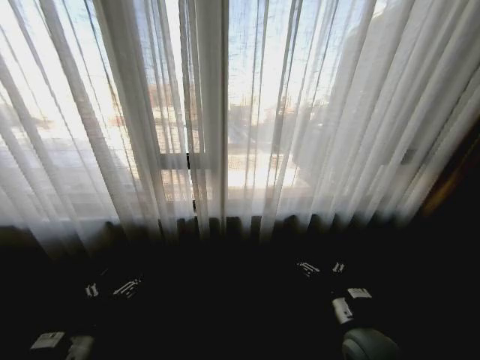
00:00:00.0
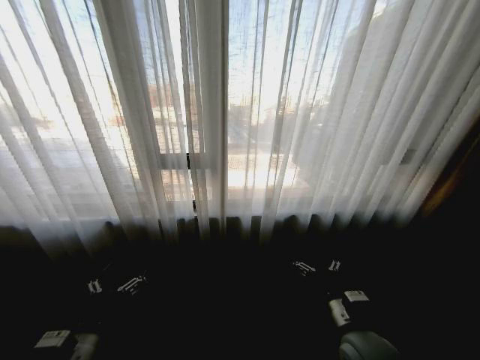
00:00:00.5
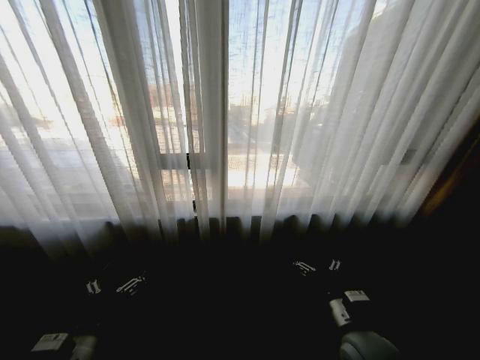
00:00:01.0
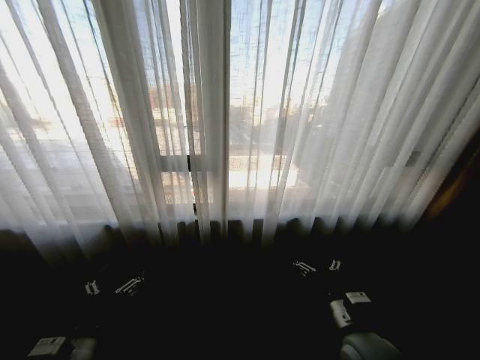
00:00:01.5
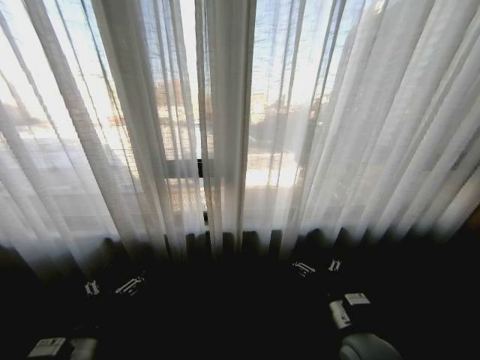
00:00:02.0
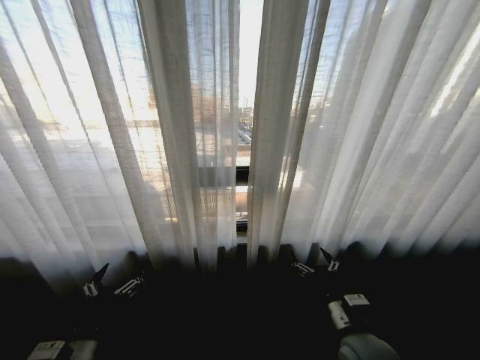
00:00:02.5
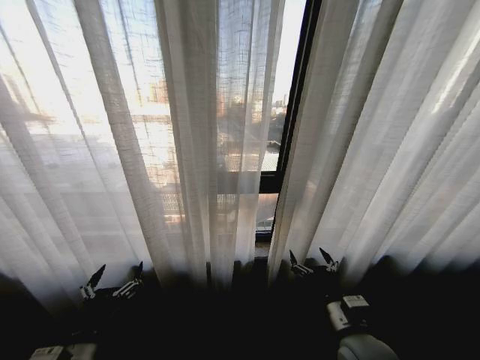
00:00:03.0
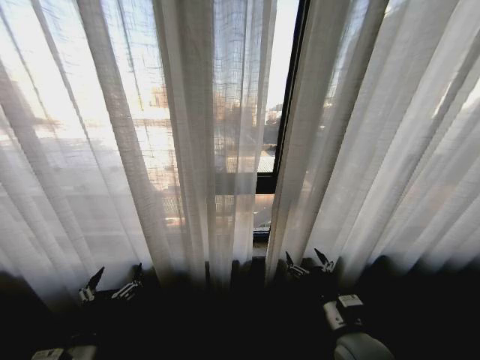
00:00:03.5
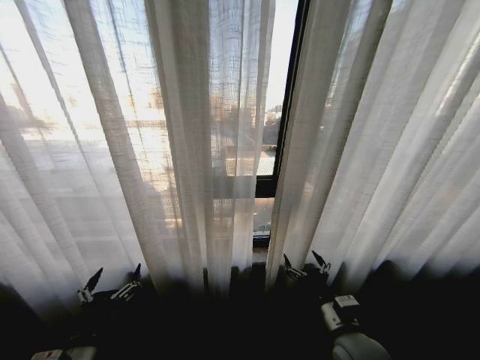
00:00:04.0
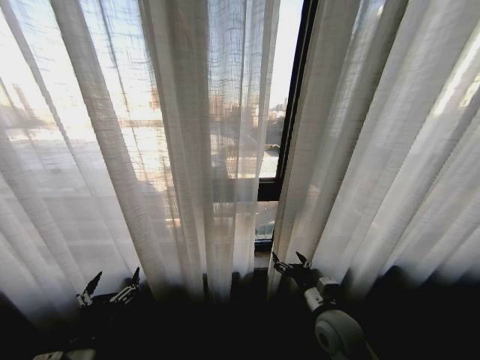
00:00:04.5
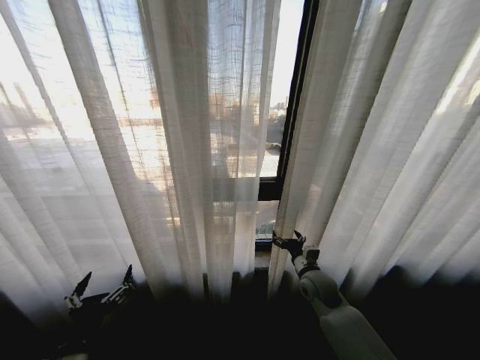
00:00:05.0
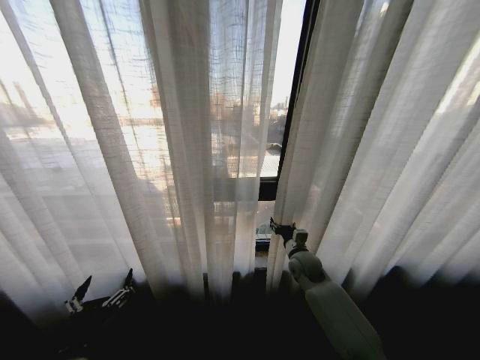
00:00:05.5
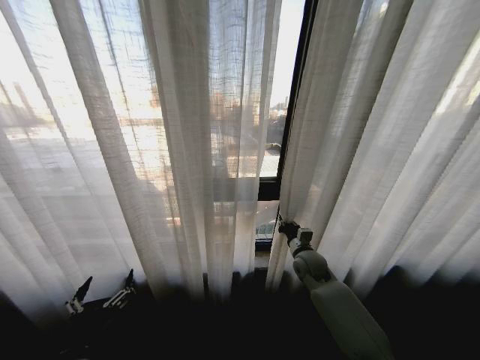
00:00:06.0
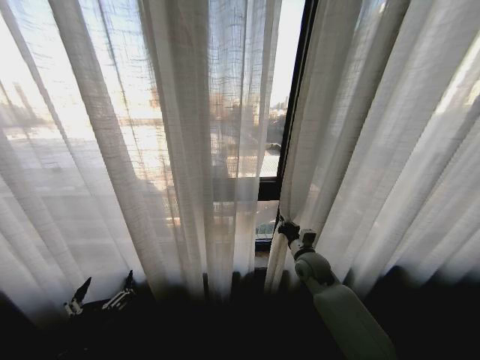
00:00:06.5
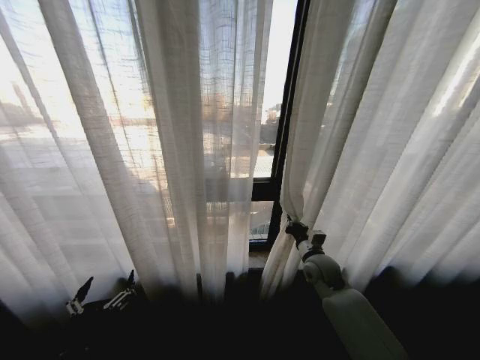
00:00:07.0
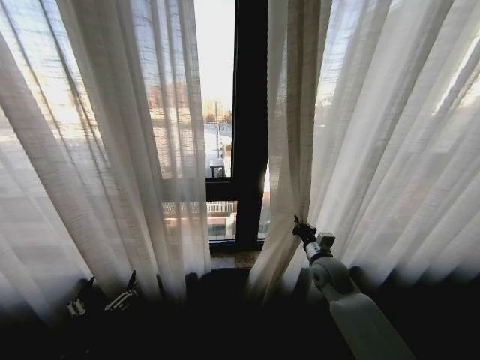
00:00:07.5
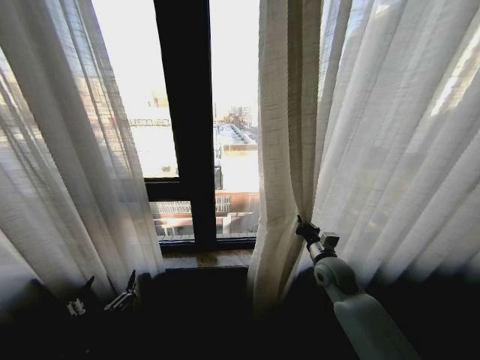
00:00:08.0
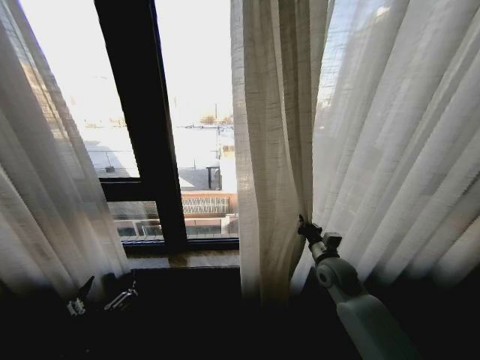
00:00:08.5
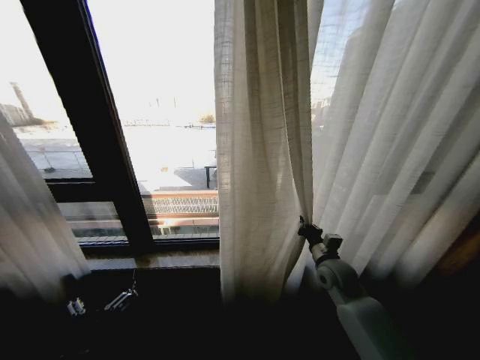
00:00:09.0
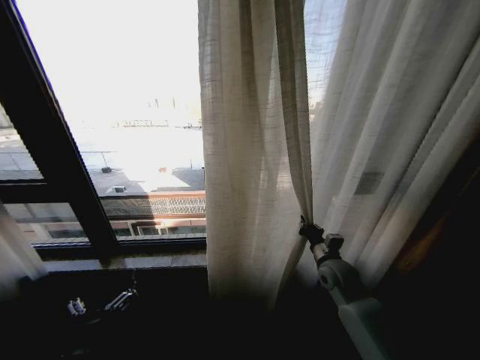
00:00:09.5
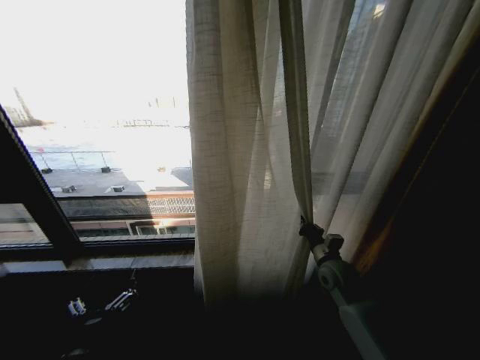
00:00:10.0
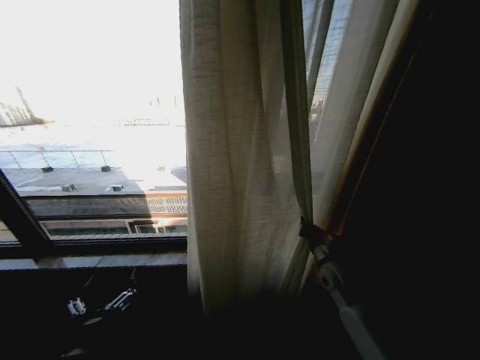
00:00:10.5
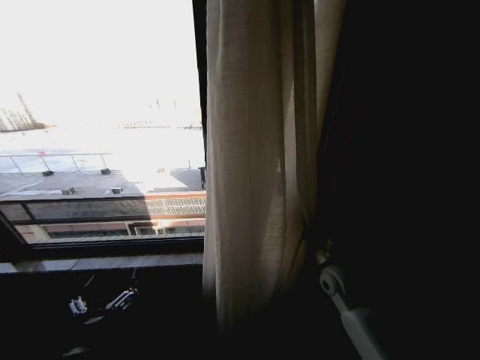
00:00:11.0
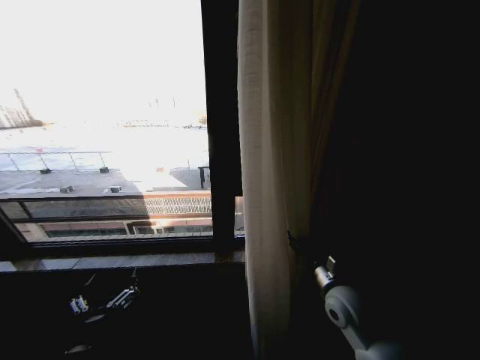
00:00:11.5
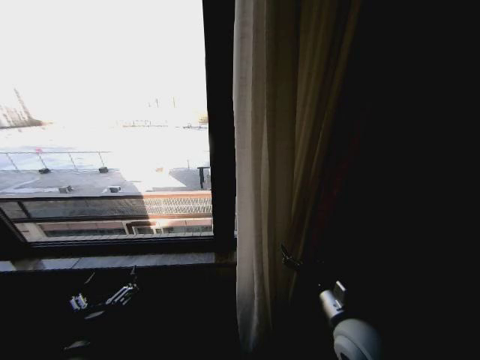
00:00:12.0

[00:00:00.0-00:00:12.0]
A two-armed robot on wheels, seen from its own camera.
Task of the whole recording: Open the curtains by pulling them apart, changing their state from closed to fully open.
00:00:04.0 to 00:00:06.0: The right gripper moves forward, some 25 cm, and closes up.
00:00:06.0 to 00:00:08.0: The right gripper shifts by roughly 5 cm.
00:00:10.0 to 00:00:12.0: The right gripper shifts approximately 15 cm backward, and opens up.

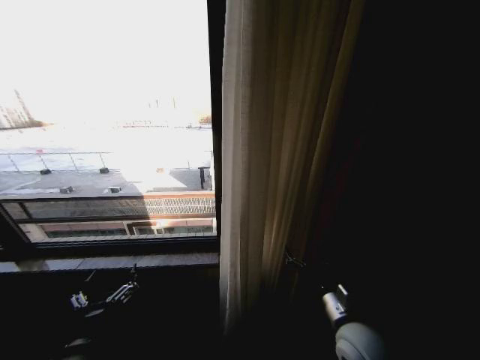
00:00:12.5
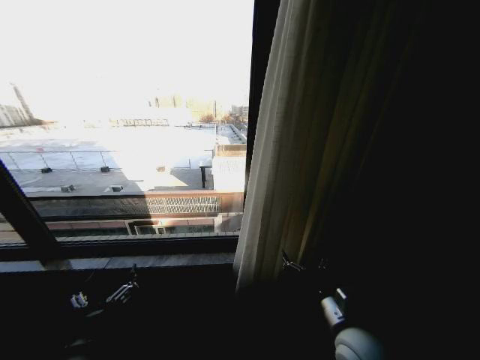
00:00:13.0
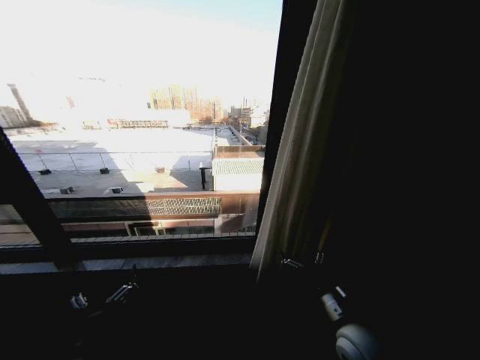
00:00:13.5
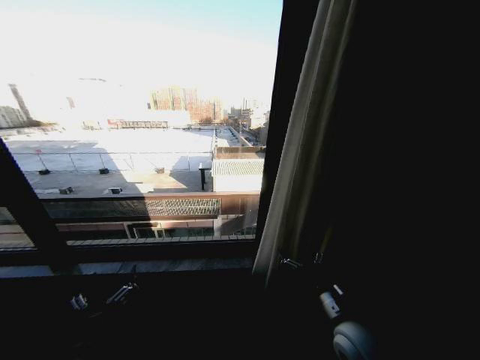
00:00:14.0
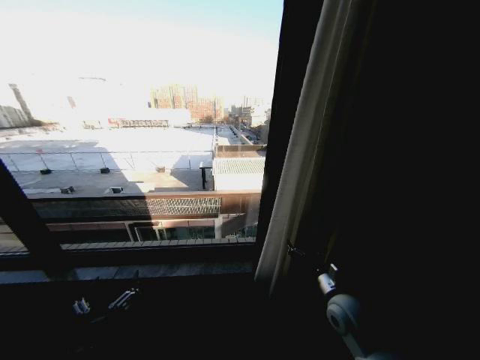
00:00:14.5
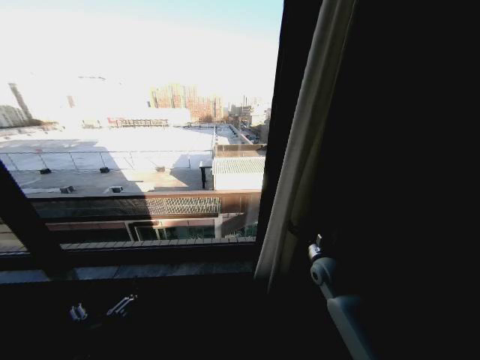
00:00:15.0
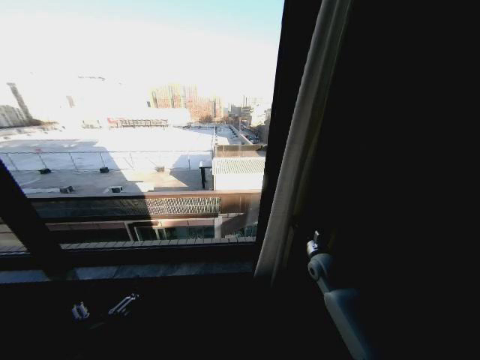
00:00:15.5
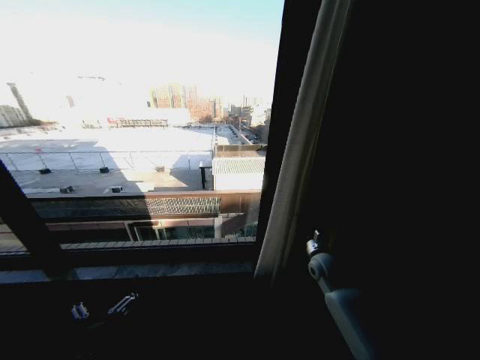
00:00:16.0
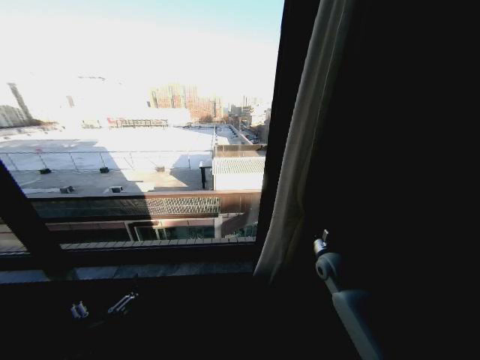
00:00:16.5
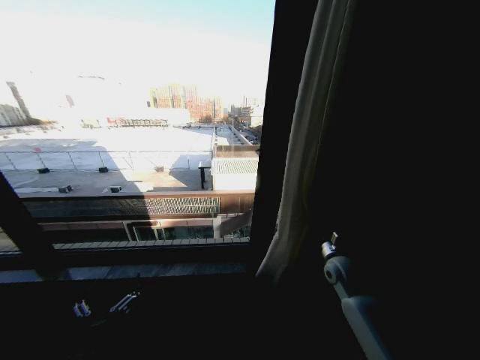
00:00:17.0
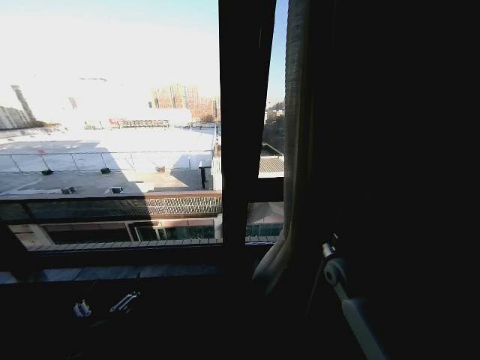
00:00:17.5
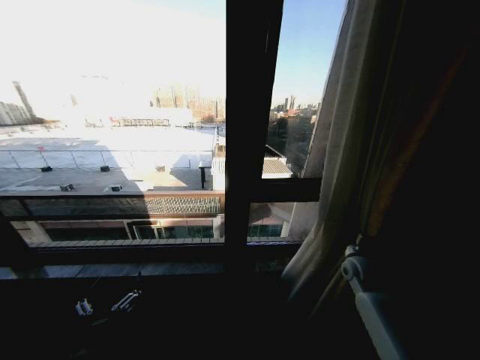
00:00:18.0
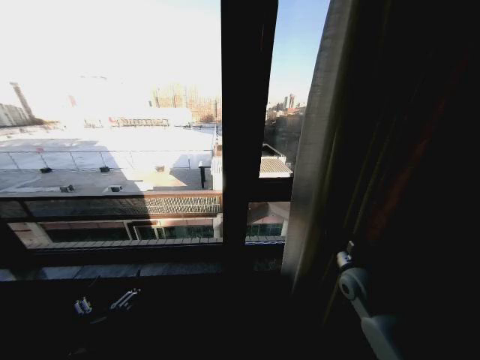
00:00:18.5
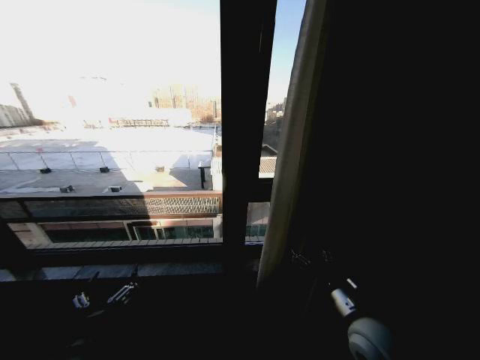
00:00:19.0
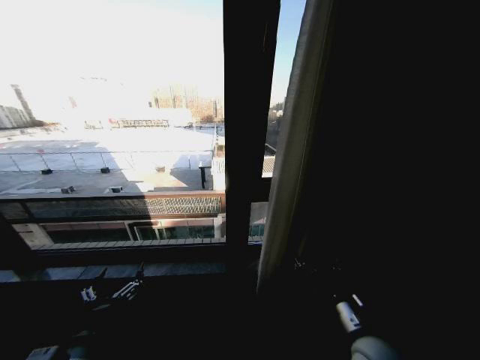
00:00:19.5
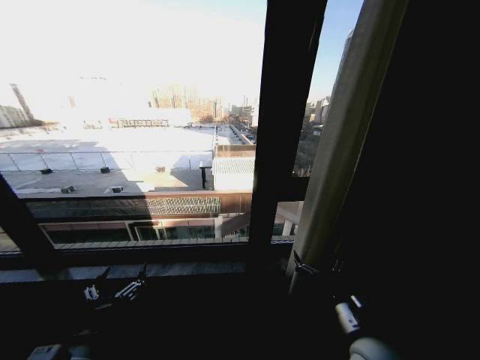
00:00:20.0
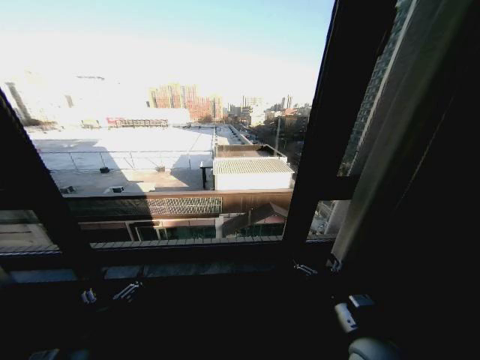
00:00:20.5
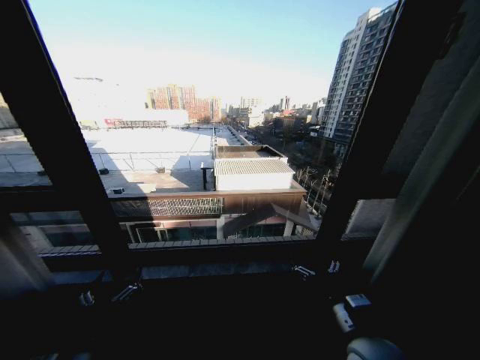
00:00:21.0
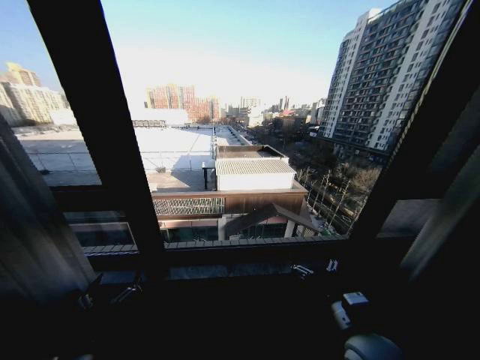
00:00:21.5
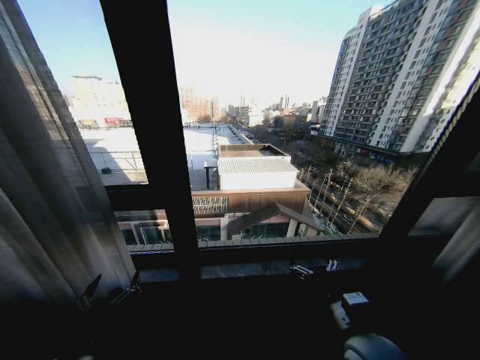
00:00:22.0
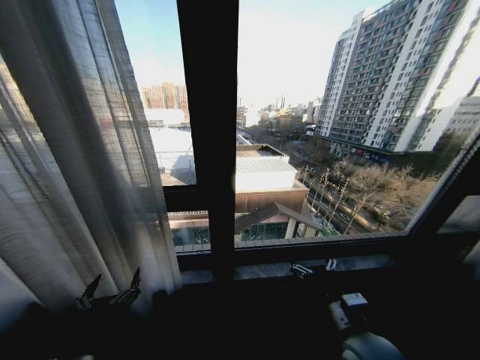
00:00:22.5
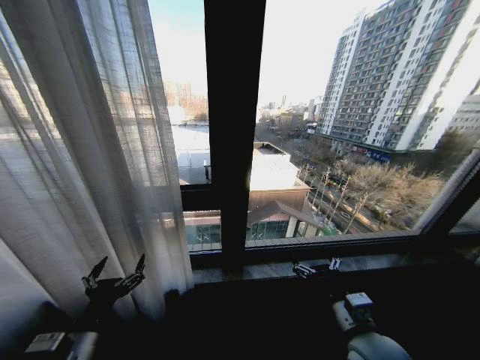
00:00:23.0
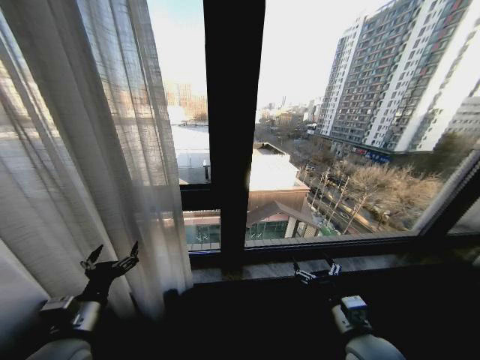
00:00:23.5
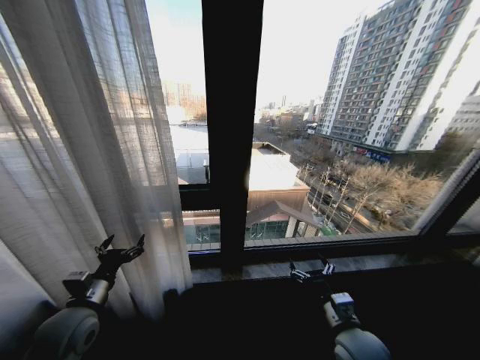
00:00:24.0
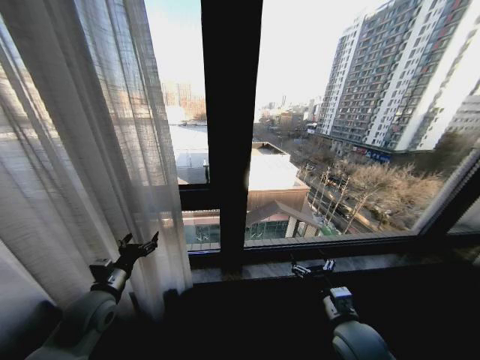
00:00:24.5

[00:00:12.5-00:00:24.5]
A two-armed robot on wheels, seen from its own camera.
Task of the whole recording: Open the curtains by pulling them apart, changing their state from closed to fully open.
00:00:12.5 to 00:00:14.5: The right gripper moves forward, roughly 5 cm.
00:00:14.5 to 00:00:16.5: The right gripper shifts some 15 cm forward, and closes its fingers.
00:00:16.5 to 00:00:18.5: The right gripper moves backward, some 5 cm.
00:00:18.5 to 00:00:20.5: The right gripper goes some 20 cm backward and to the left, and opens up.
00:00:22.5 to 00:00:24.5: The left gripper shifts about 20 cm forward; the right gripper shifts by some 5 cm.

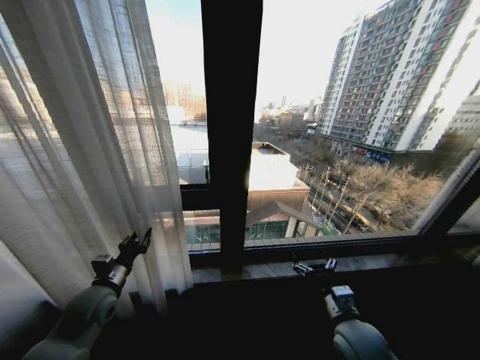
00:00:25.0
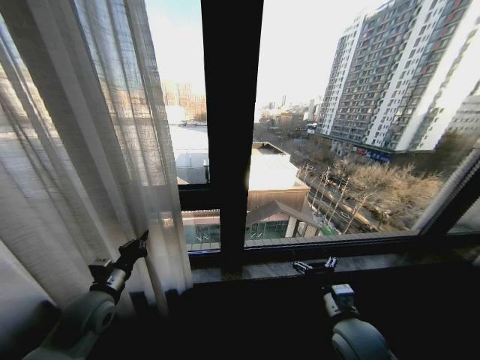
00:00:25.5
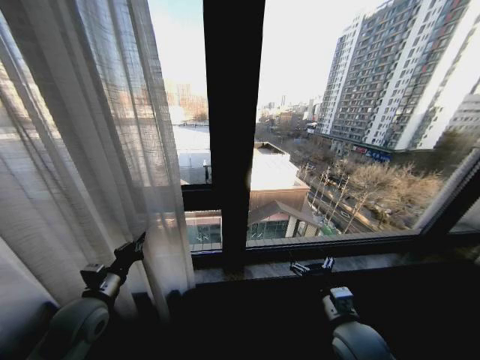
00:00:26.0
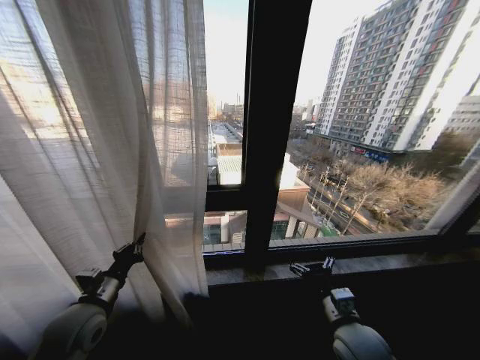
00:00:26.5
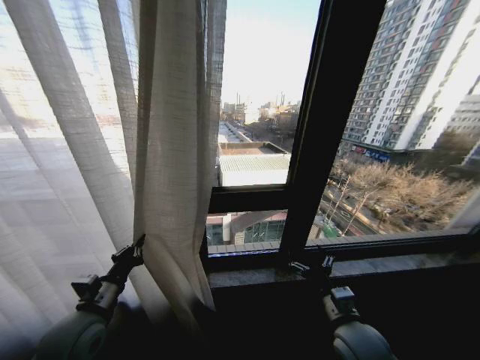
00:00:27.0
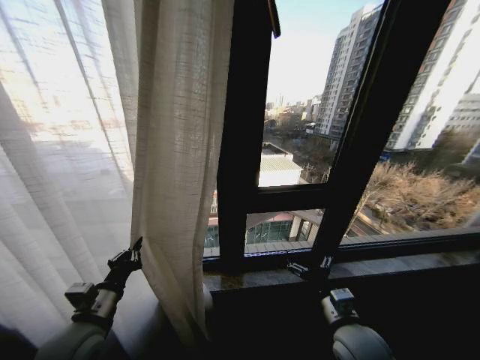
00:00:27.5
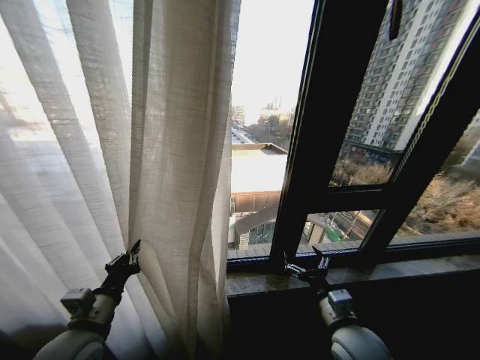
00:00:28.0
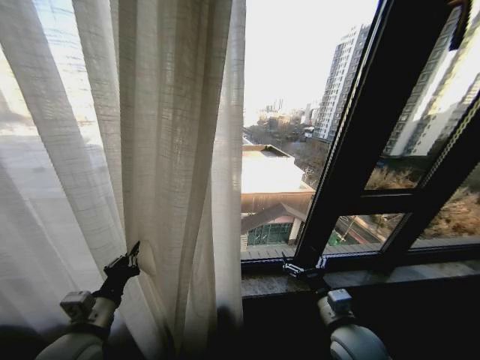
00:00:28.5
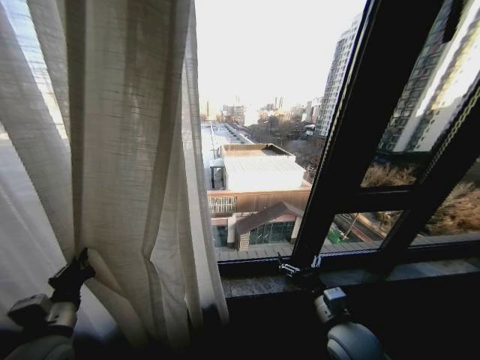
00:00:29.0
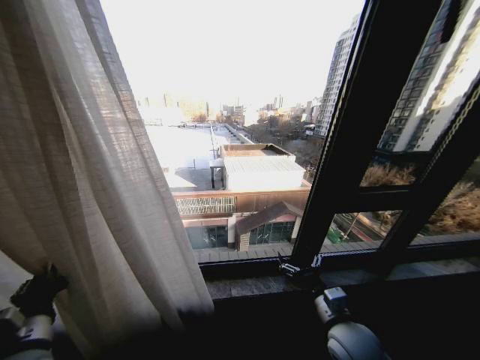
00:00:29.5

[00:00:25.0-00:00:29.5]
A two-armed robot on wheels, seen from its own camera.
Task of the whole recording: Open the curtains by pulling them apart, changing their state from closed to fully open.
00:00:25.0 to 00:00:27.0: The left gripper shifts about 5 cm backward, and closes.
00:00:27.0 to 00:00:29.5: The left gripper moves backward, approximately 5 cm.
